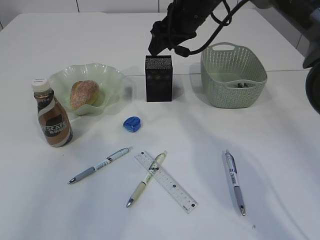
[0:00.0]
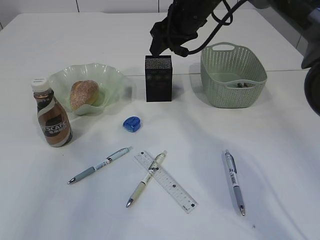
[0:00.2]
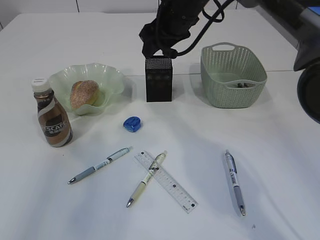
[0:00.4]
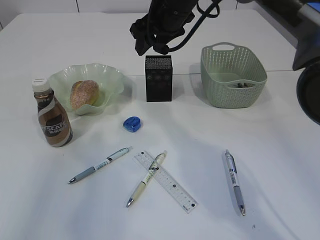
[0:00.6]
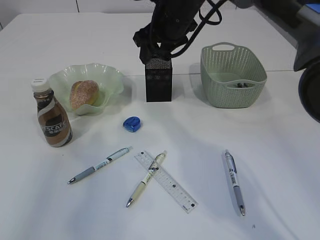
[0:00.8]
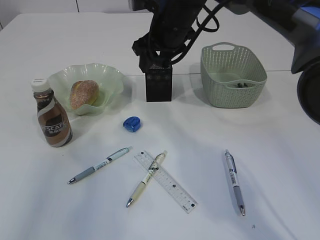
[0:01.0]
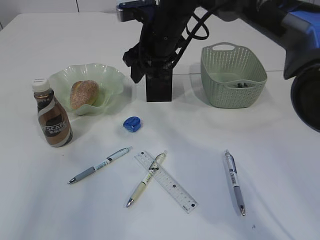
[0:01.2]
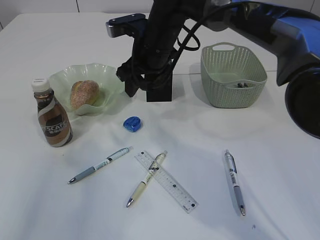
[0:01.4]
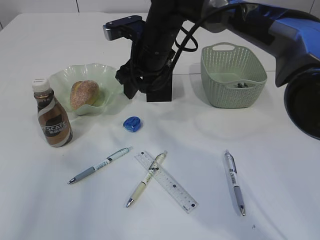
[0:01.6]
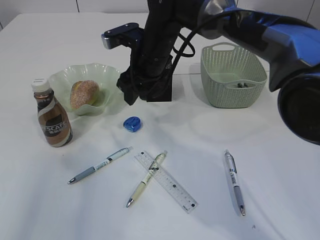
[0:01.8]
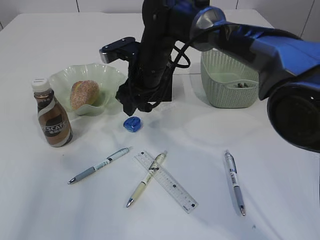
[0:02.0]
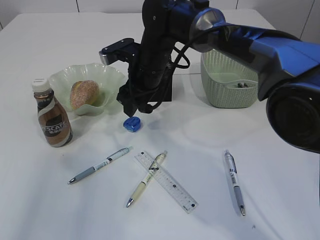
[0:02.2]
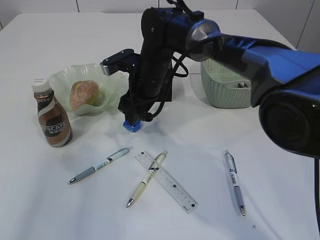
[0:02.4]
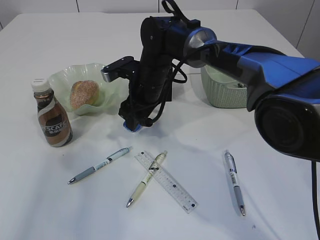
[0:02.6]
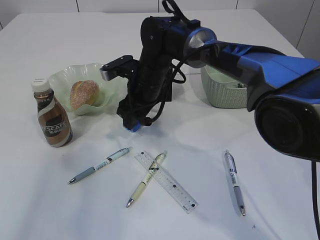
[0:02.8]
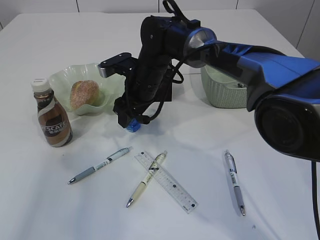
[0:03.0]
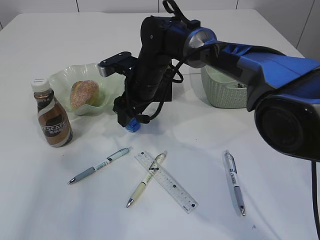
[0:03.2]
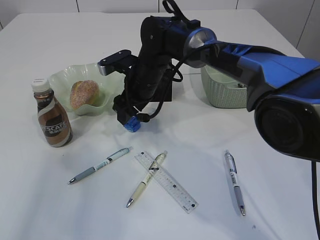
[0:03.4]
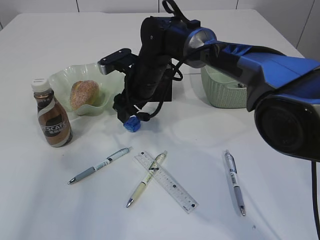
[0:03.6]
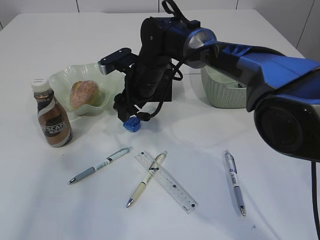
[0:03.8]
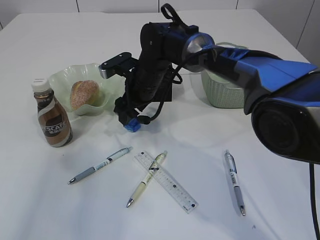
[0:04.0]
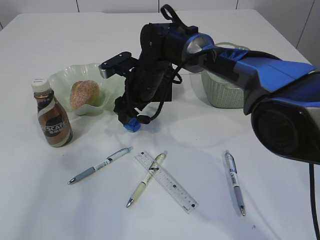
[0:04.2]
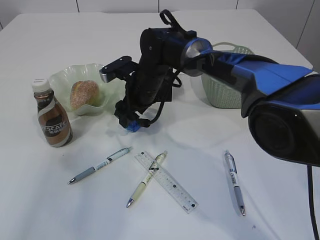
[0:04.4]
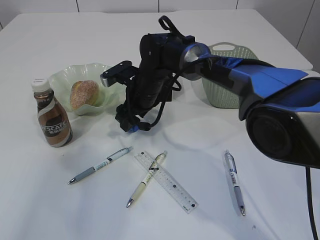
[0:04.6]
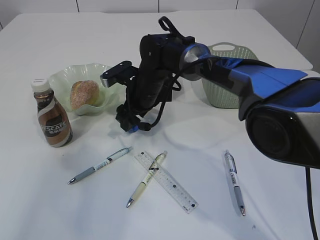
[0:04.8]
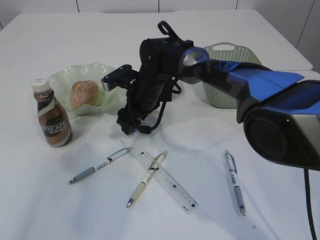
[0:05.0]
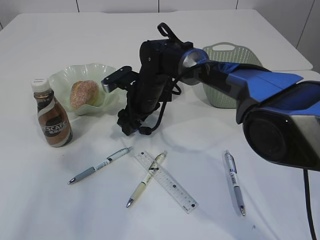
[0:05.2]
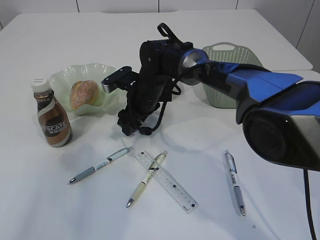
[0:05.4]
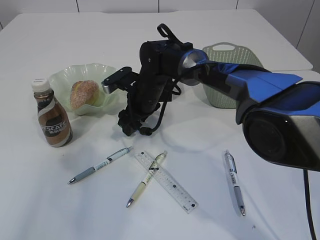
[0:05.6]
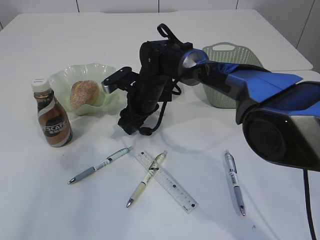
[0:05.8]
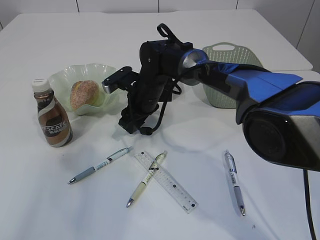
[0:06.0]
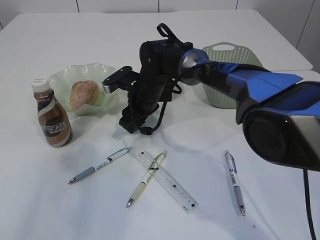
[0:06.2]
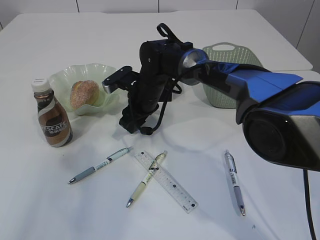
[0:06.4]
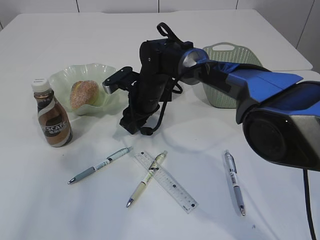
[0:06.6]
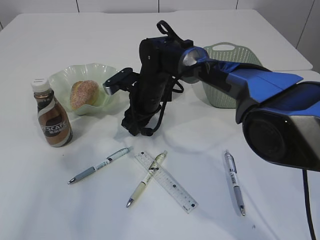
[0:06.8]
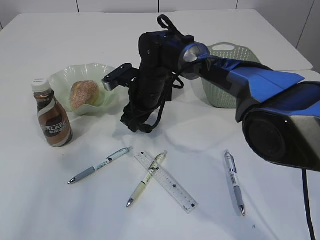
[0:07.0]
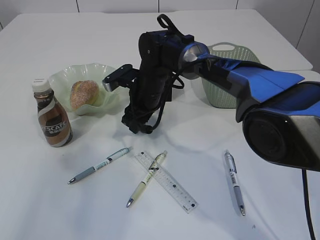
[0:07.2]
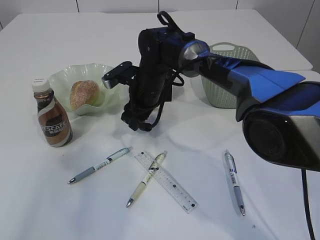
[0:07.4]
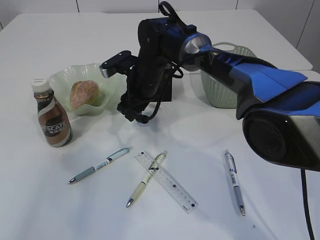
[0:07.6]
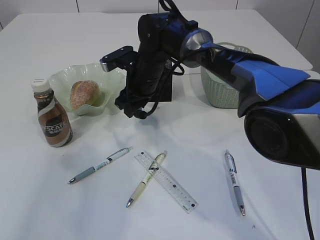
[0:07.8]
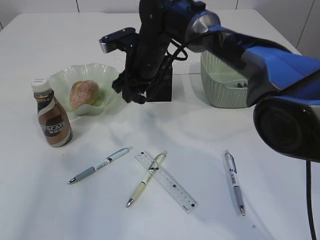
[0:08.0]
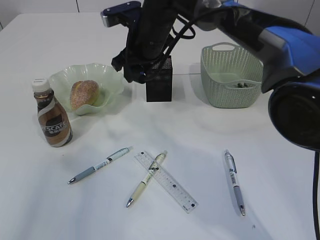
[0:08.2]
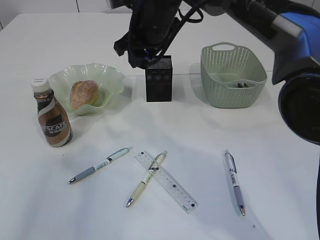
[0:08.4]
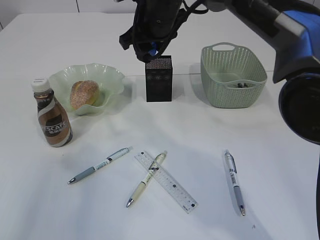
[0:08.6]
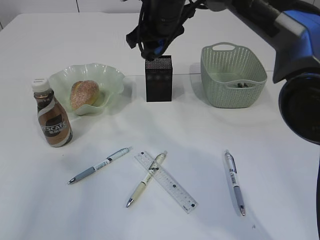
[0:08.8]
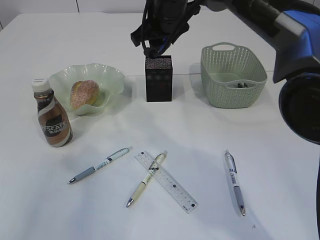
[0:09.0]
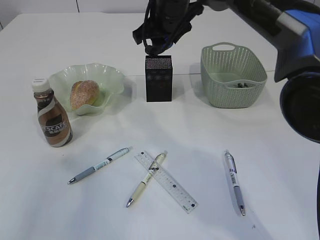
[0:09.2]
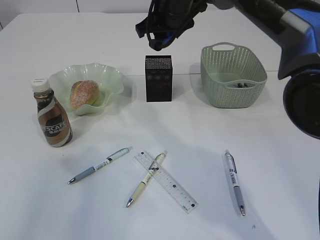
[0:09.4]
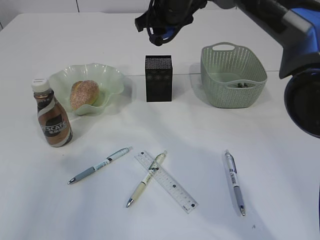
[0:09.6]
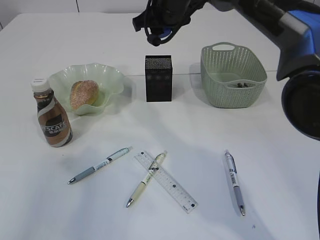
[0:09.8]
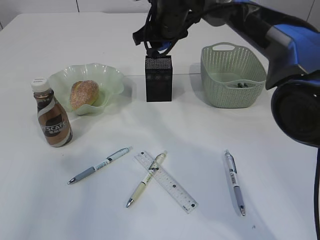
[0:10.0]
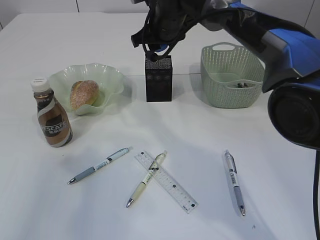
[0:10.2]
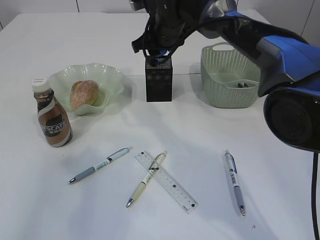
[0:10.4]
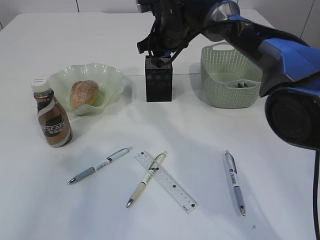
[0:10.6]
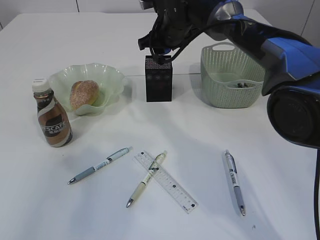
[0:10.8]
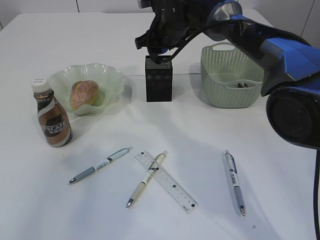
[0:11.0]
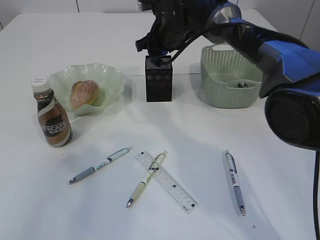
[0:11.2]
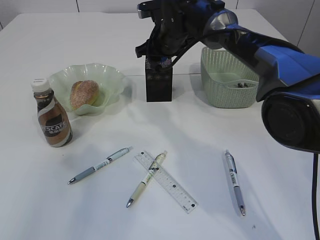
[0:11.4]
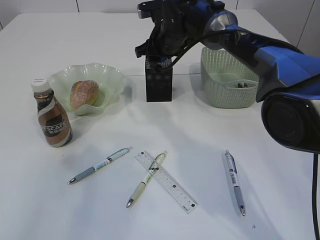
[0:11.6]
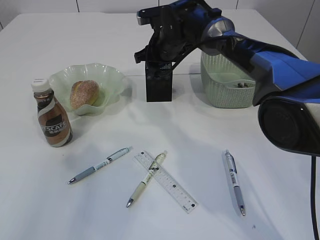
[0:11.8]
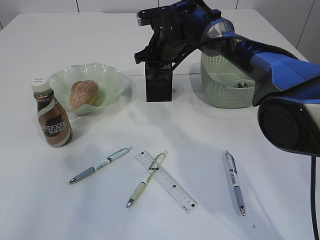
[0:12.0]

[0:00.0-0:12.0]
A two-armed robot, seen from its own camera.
Step, 0:00.0 to 0:08.0: Pick up the blue pencil sharpener.
0:00.0 to 0:01.6: The right gripper goes about 10 cm to the left.
0:01.6 to 0:03.0: The right gripper is displaced downward by approximately 5 cm.
0:03.0 to 0:07.6: The grippers stay close to where they were, moving slightly.
0:07.6 to 0:09.0: The right gripper travels upward by approximately 15 cm.
0:09.0 to 0:10.4: The right gripper ends up some 5 cm from where it was.
0:10.4 to 0:12.0: The right gripper moves roughly 5 cm.

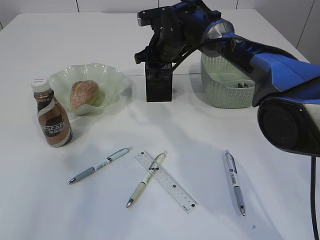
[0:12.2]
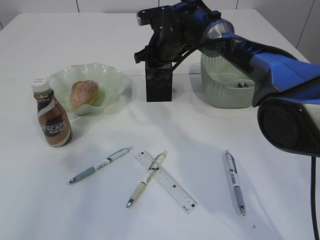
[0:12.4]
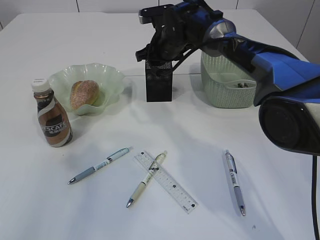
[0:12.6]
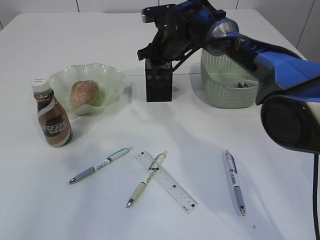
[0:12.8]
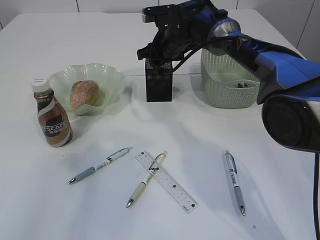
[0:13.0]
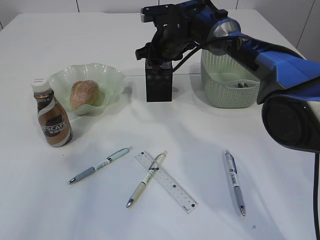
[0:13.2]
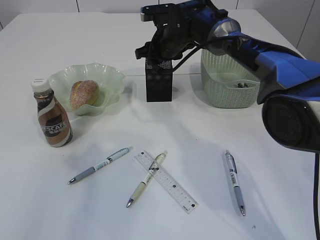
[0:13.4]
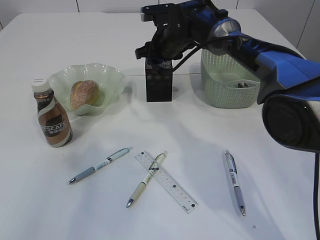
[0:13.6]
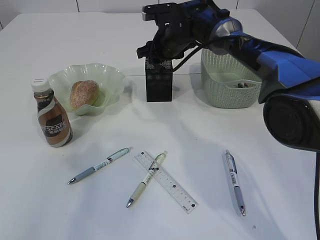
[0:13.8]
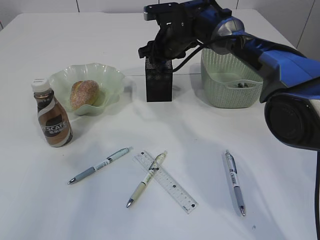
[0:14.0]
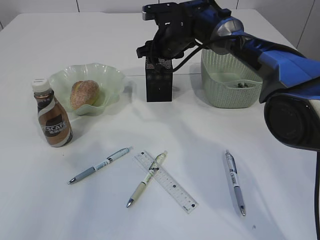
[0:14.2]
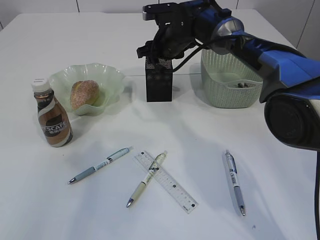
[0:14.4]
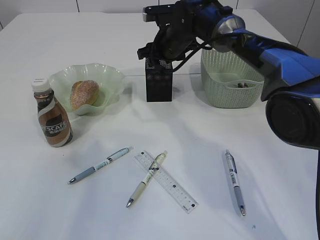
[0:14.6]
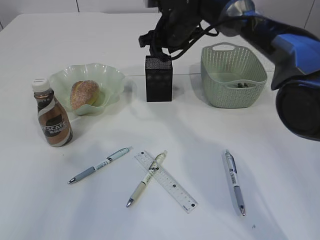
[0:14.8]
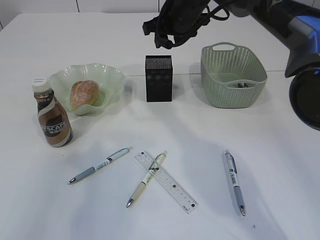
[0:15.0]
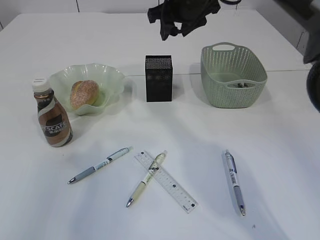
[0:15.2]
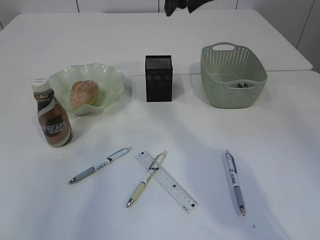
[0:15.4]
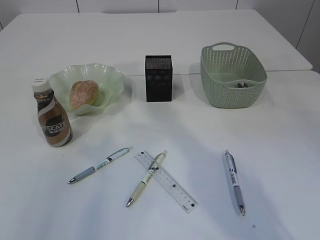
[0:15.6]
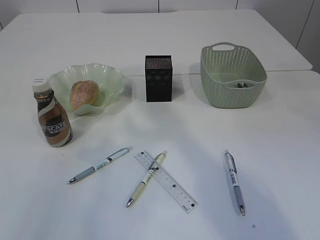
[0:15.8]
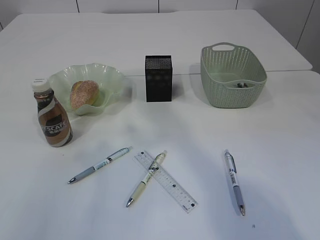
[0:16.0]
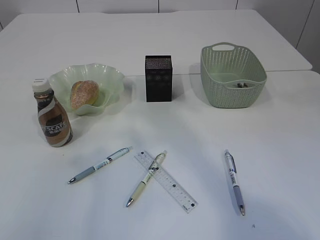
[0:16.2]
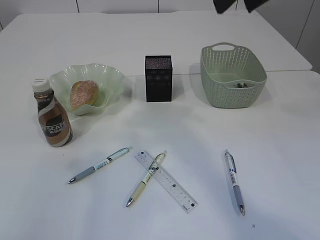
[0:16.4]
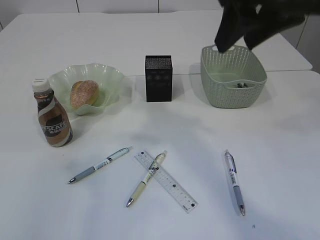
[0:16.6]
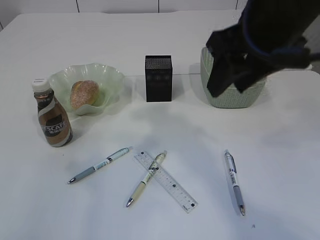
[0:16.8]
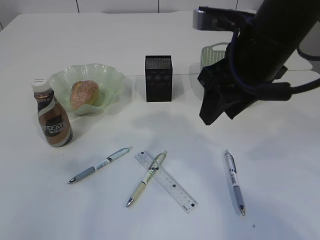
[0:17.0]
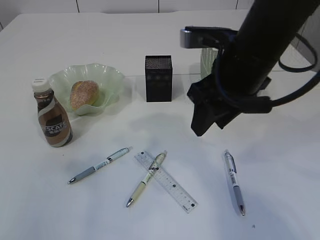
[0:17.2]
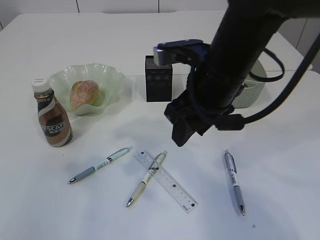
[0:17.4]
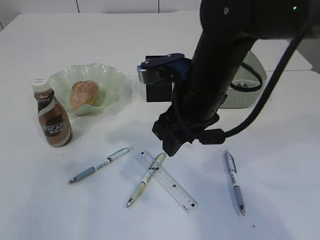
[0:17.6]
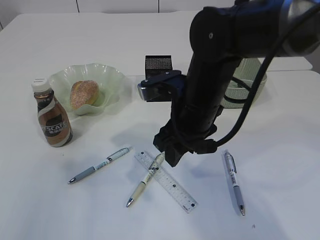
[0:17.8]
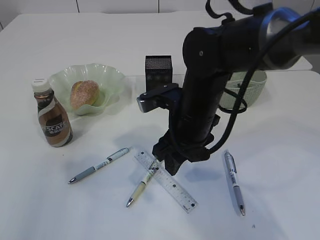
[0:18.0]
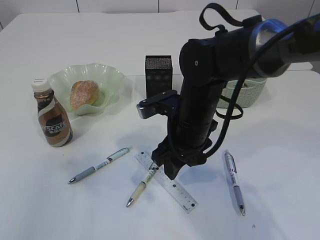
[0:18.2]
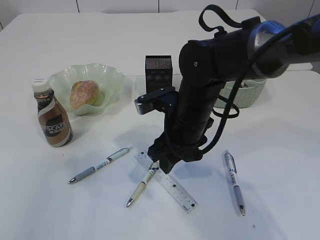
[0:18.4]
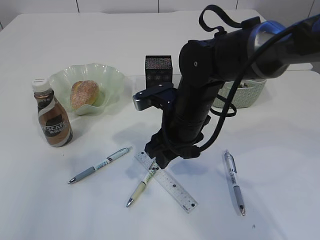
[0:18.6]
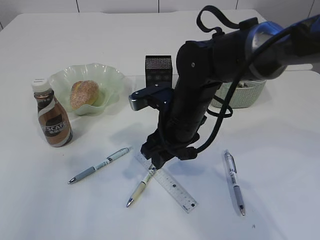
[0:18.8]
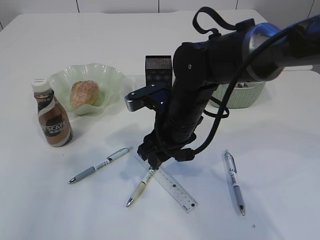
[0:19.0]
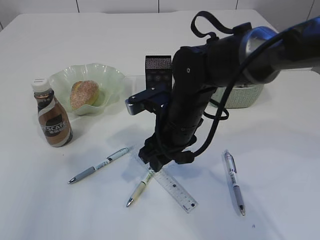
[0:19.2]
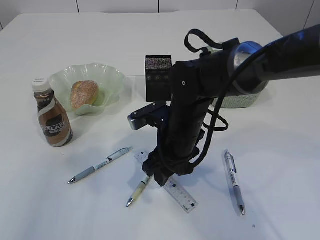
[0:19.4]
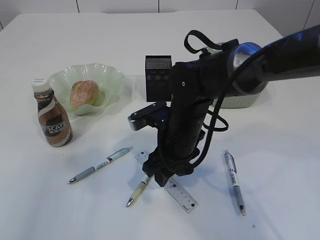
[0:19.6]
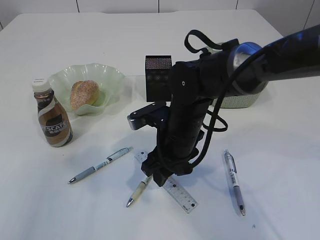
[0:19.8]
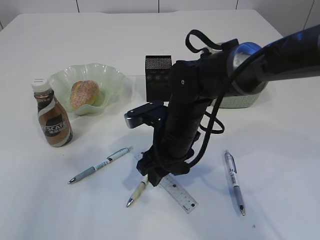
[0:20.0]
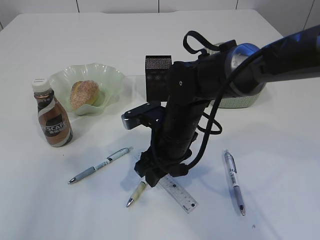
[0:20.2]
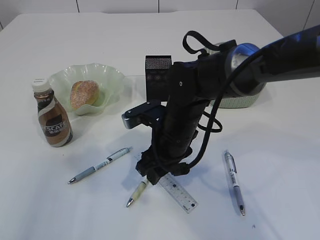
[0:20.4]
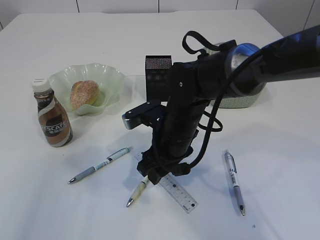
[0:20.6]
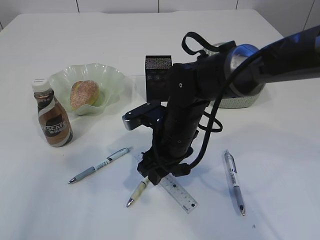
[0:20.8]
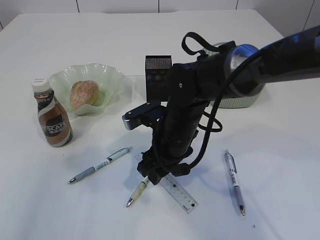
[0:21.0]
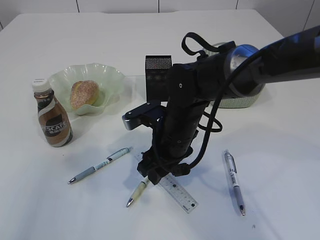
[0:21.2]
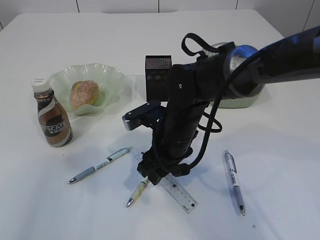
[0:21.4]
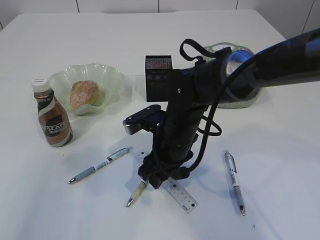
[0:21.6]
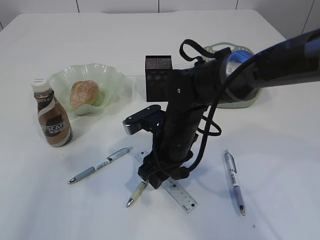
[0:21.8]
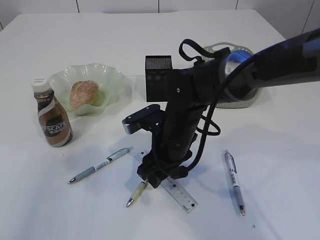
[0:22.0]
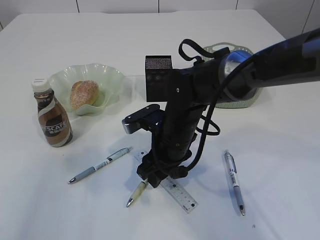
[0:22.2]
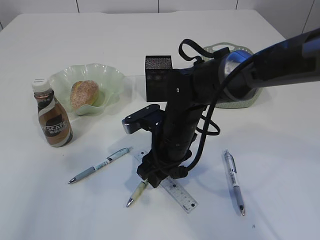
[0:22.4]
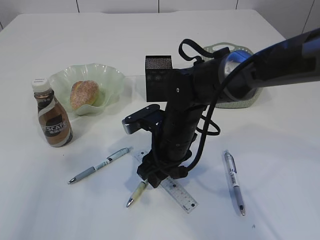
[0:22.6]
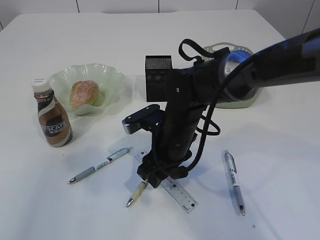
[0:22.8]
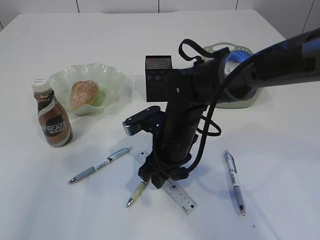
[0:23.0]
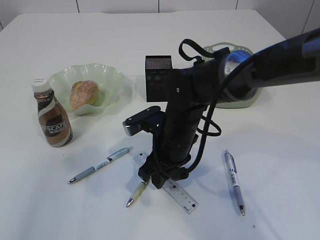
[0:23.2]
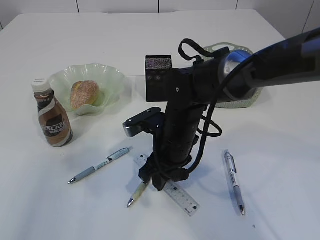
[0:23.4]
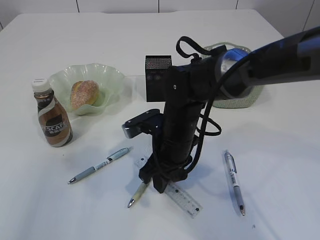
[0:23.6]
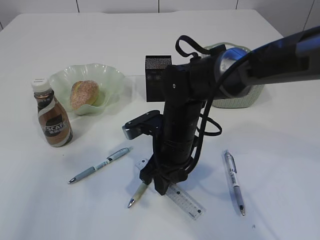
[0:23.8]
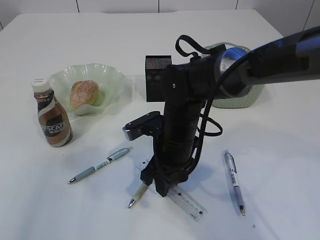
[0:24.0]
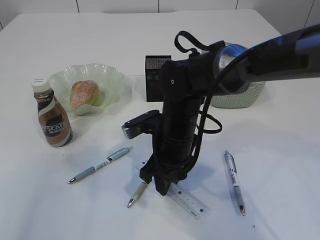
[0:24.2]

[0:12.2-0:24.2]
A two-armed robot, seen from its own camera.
Step, 0:12.2 to 0:15.2: Place the blue pencil sharpener into the pen holder.
0:12.2 to 0:13.8: The grippers stay close to where they were, moving slightly.
0:13.8 to 0:15.2: The right gripper is displaced upward and backward by roughly 10 cm.
0:15.2 to 0:16.6: The right gripper moves backward and upward, some 20 cm.
0:16.6 to 0:18.2: The right gripper moves downward, some 20 cm.
0:18.2 to 0:19.8: The grippers move only a little.
0:19.8 to 0:21.2: Neither gripper changes place.
0:21.2 to 0:22.6: The two grippers keep their place.
0:22.6 to 0:24.2: There are only small adjustments of the grippers.
